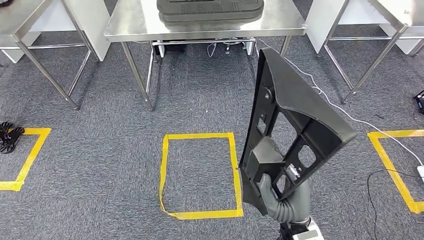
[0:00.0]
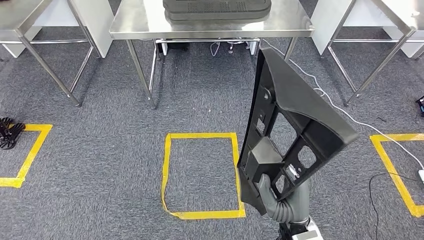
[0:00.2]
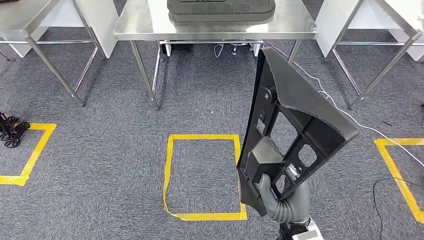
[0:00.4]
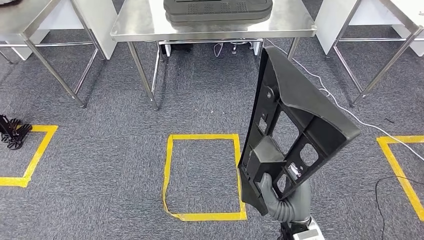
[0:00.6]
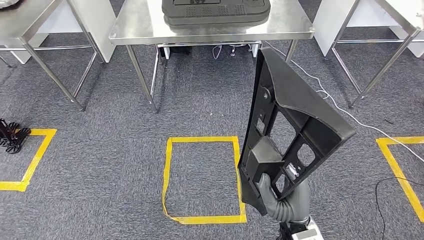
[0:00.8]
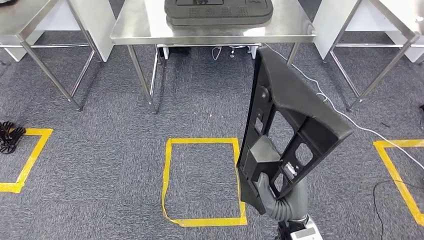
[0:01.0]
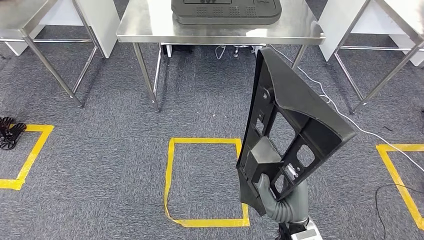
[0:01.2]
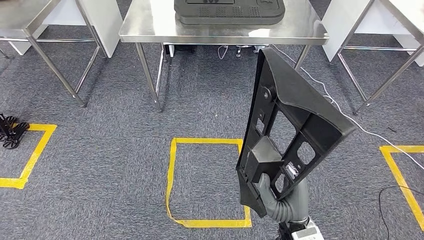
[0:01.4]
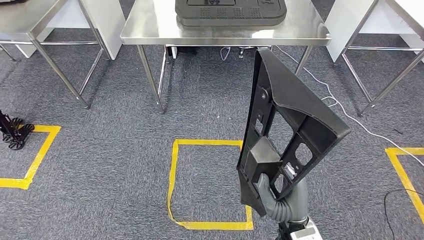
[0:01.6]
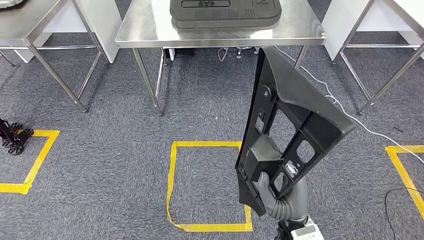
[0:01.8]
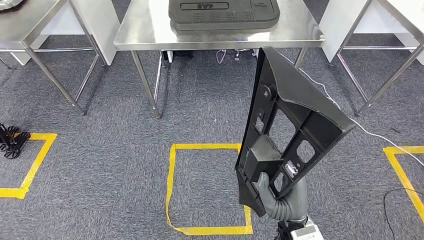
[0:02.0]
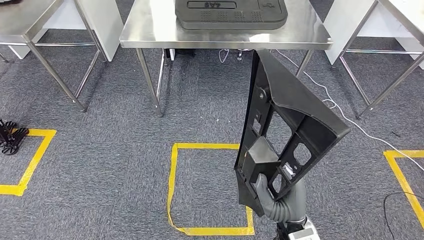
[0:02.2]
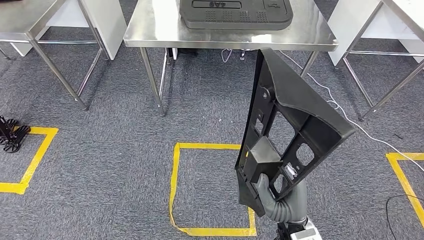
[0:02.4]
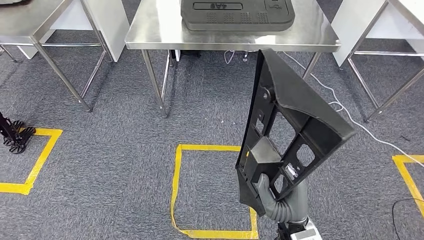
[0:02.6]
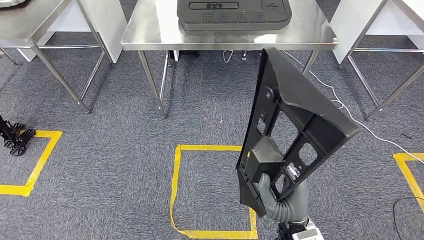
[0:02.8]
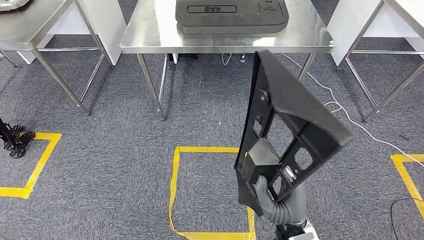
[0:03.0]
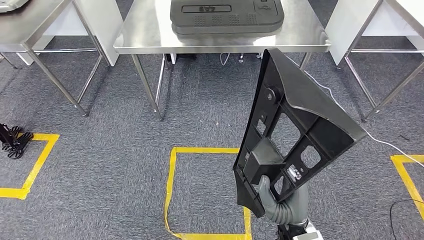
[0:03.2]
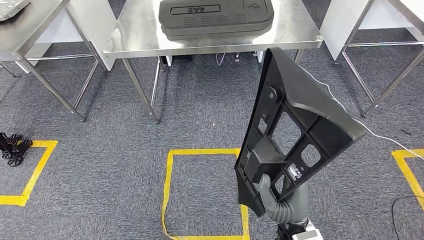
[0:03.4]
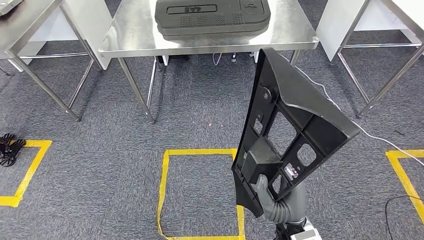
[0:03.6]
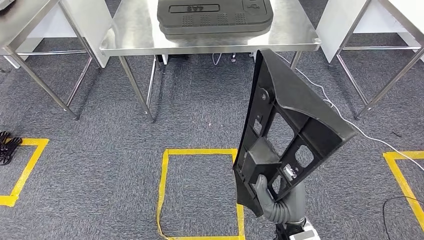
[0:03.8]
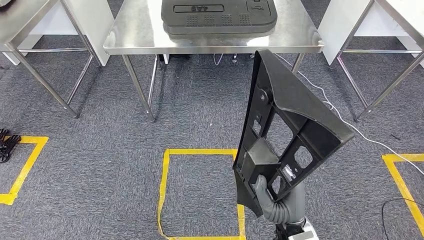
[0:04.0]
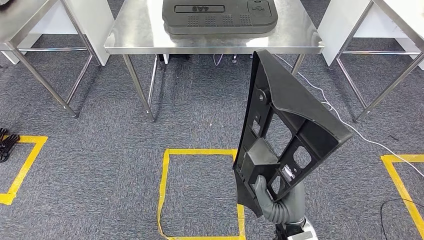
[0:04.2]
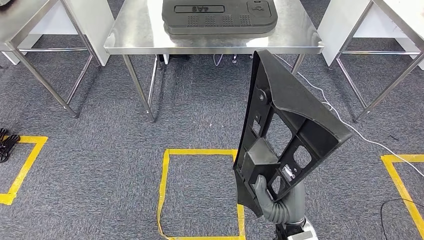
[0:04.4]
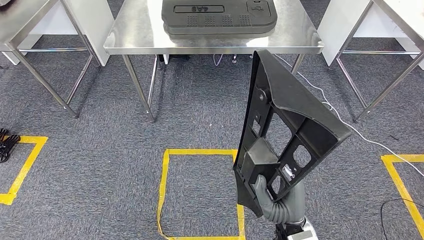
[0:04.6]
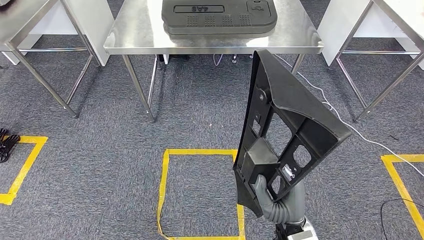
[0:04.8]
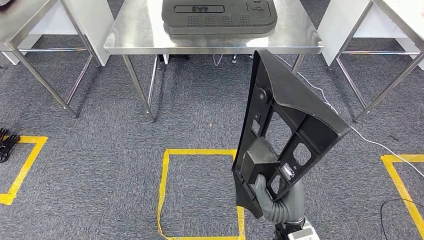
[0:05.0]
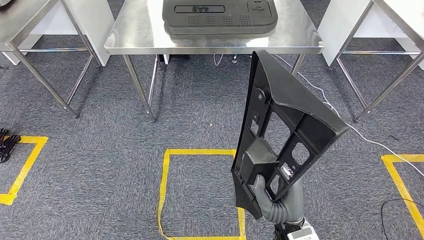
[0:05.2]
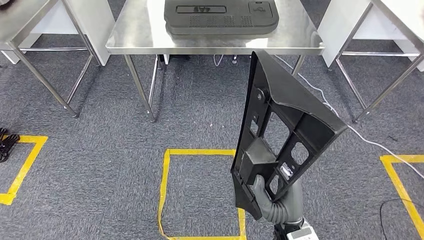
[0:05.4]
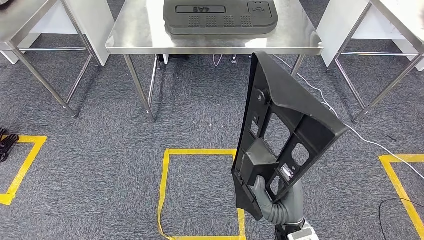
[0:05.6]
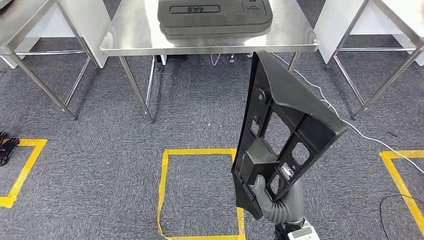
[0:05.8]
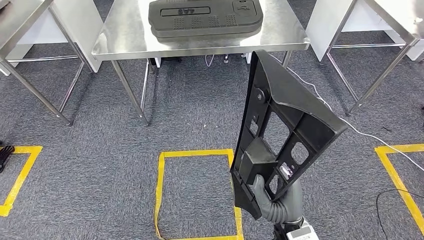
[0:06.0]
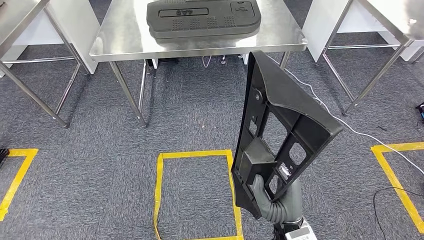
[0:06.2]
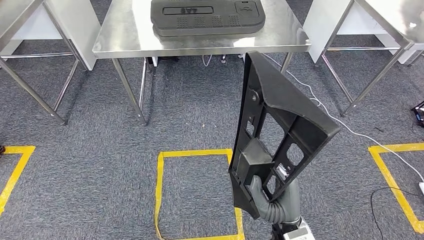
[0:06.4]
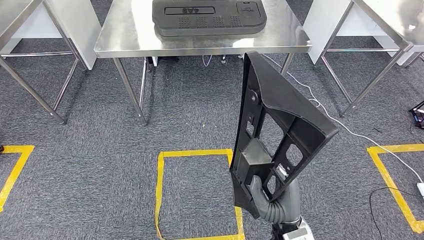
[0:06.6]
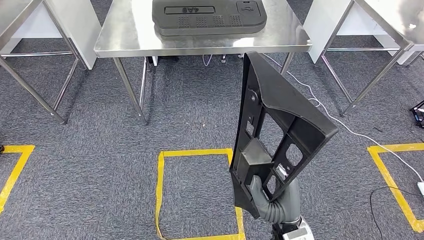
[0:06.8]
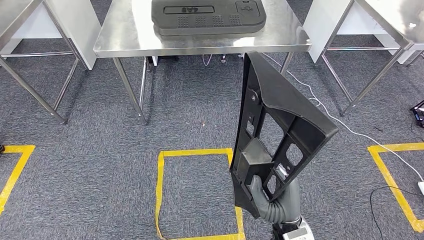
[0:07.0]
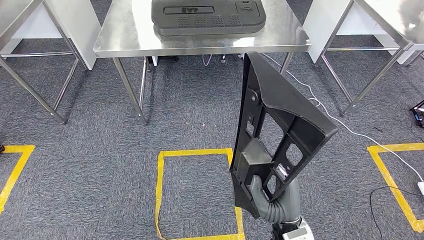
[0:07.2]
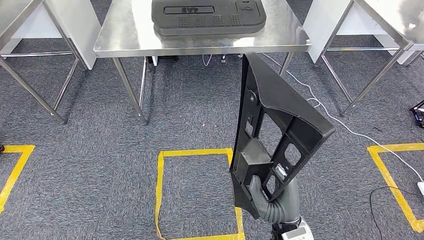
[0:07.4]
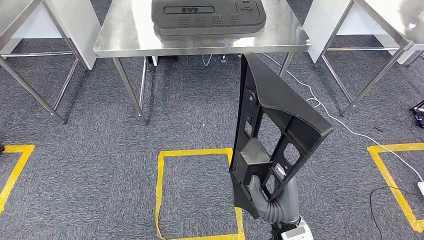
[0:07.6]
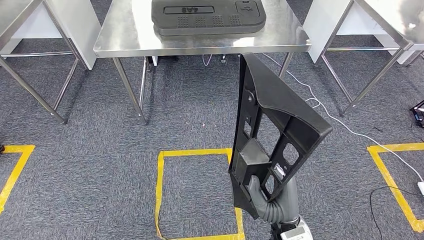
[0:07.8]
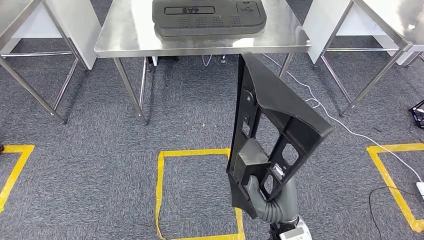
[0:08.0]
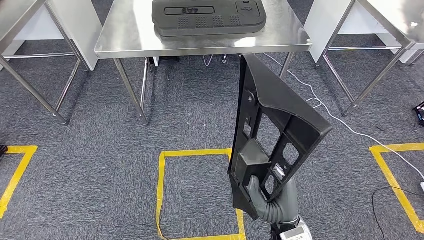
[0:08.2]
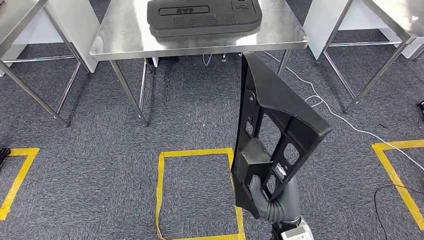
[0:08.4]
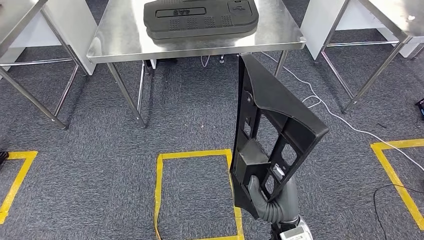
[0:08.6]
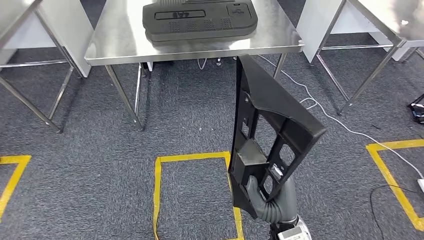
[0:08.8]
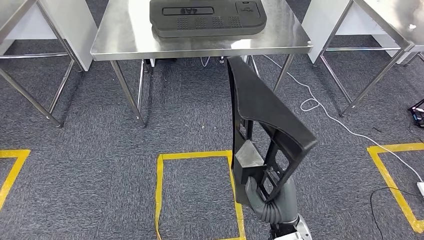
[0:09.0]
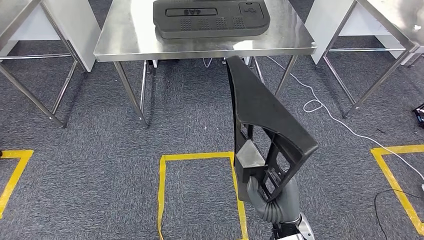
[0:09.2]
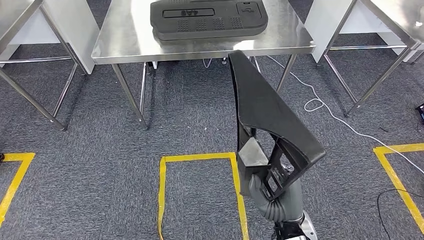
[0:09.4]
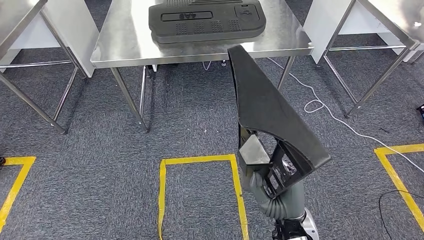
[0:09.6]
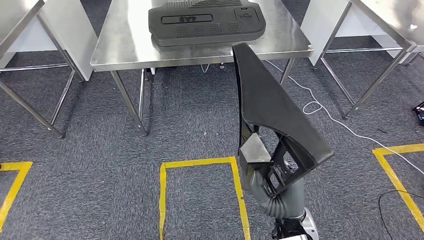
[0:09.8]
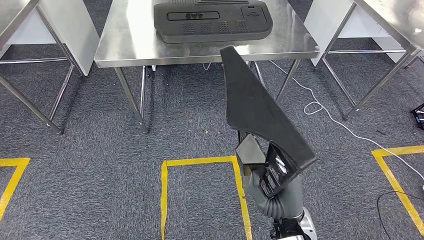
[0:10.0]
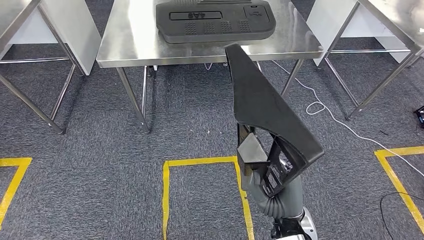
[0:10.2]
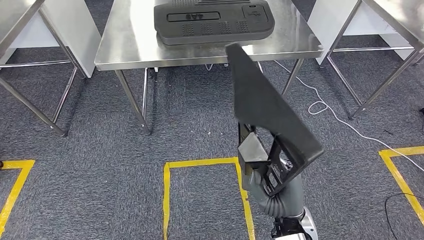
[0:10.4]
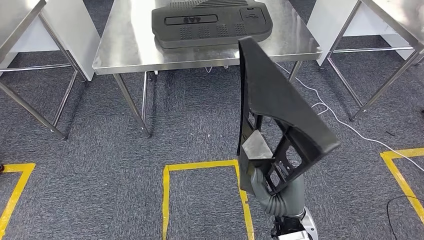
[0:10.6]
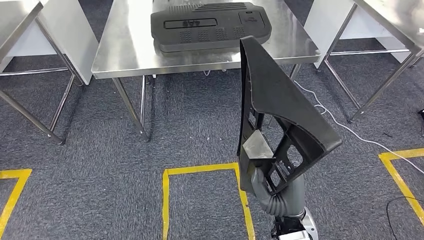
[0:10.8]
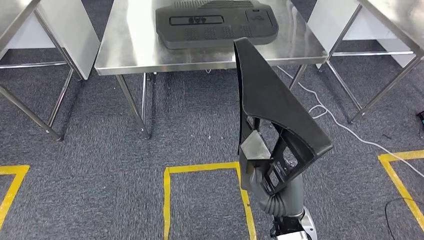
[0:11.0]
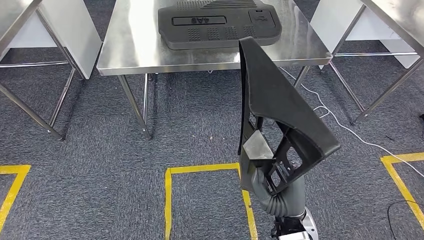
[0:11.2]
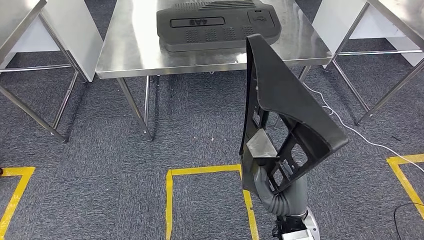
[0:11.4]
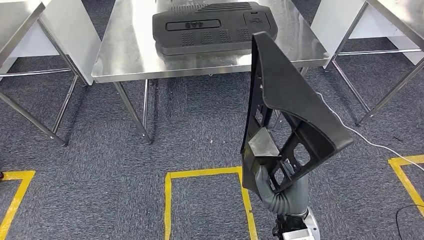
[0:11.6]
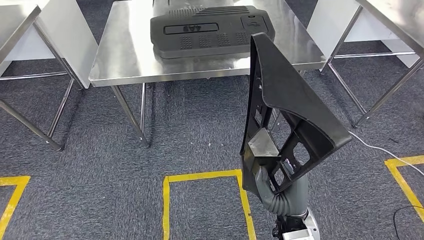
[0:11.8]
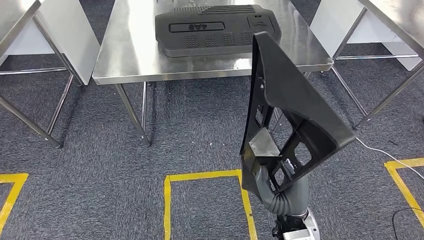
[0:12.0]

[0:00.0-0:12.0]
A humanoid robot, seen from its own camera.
Step, 0:00.0 to 0:10.0: Move the large material to the workbench.

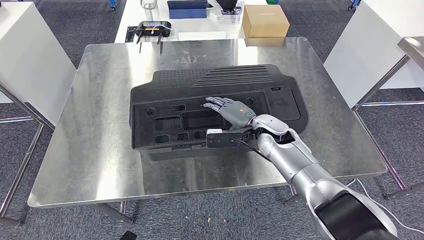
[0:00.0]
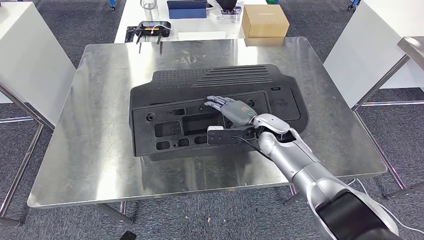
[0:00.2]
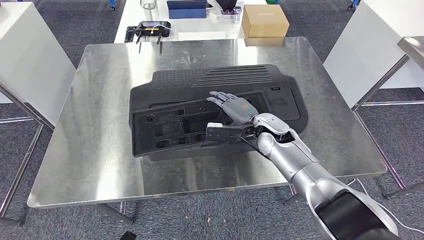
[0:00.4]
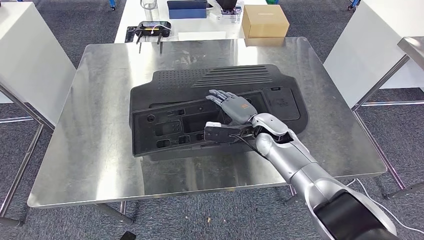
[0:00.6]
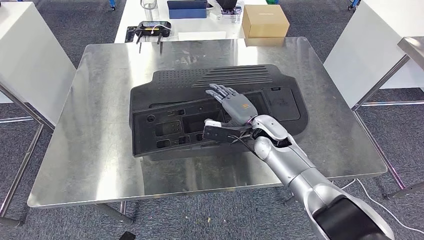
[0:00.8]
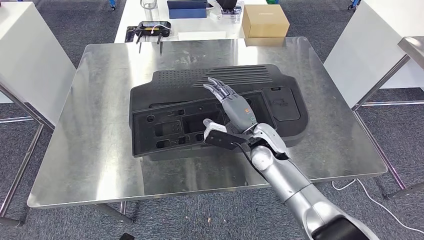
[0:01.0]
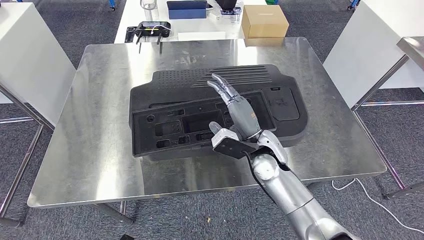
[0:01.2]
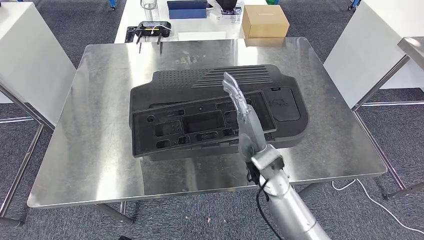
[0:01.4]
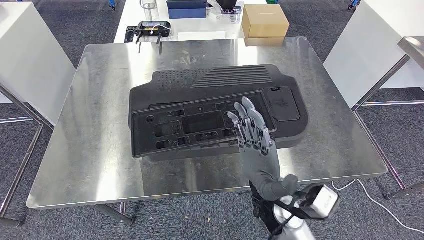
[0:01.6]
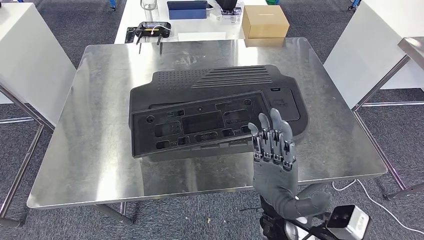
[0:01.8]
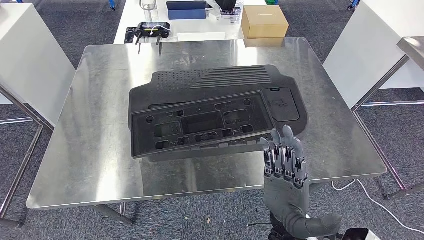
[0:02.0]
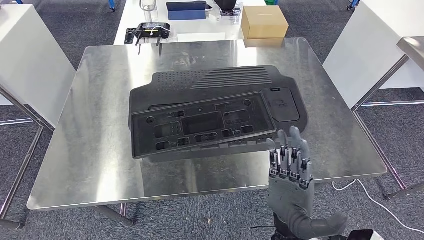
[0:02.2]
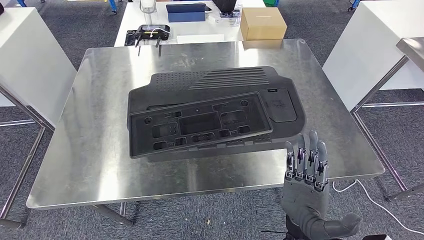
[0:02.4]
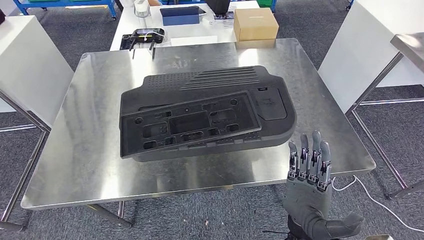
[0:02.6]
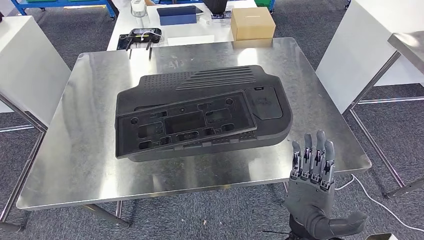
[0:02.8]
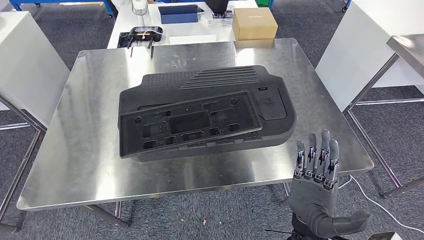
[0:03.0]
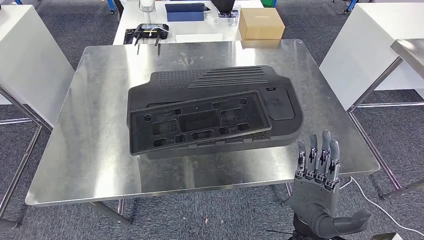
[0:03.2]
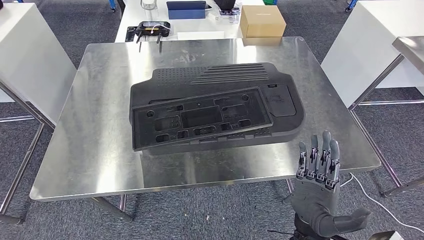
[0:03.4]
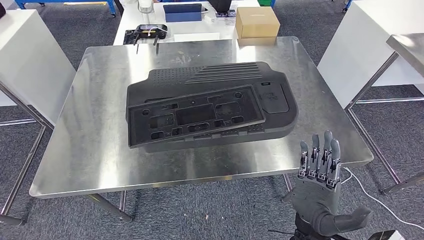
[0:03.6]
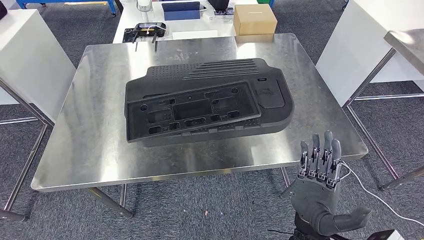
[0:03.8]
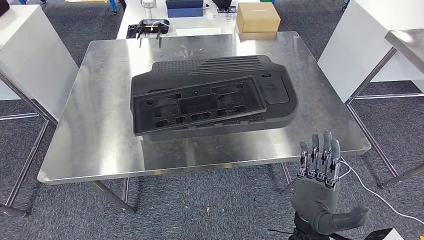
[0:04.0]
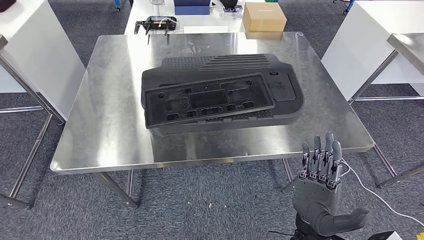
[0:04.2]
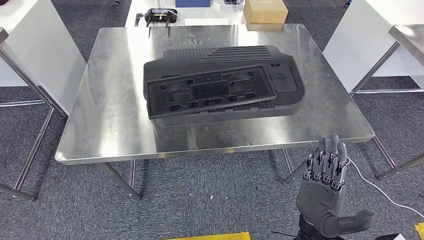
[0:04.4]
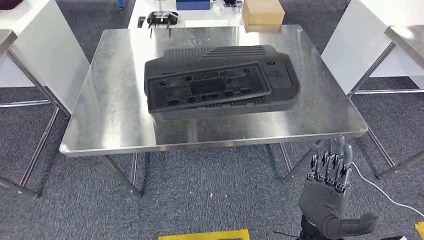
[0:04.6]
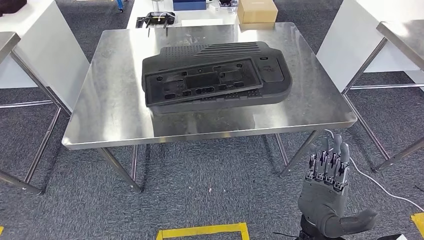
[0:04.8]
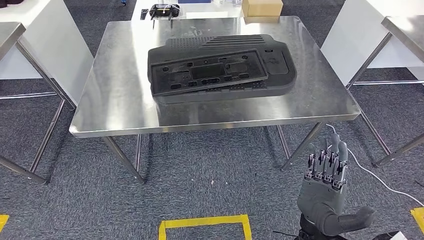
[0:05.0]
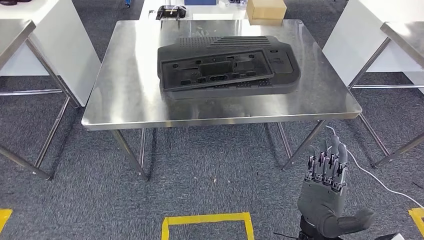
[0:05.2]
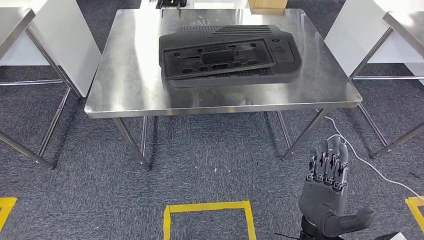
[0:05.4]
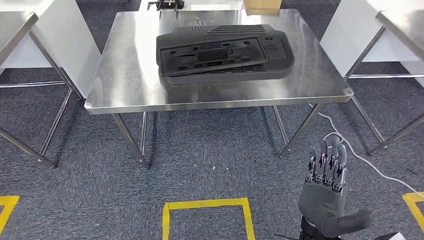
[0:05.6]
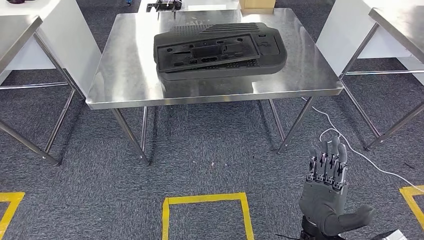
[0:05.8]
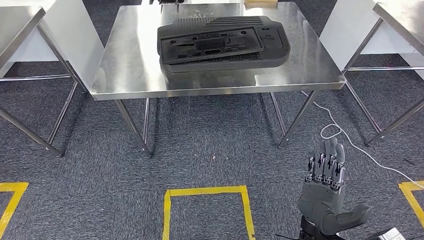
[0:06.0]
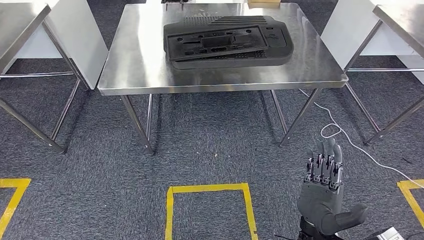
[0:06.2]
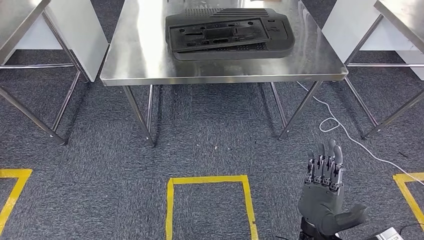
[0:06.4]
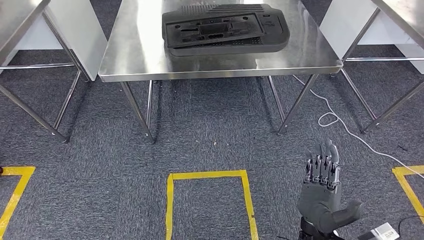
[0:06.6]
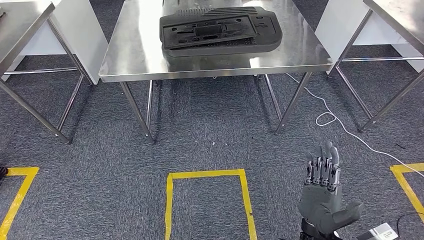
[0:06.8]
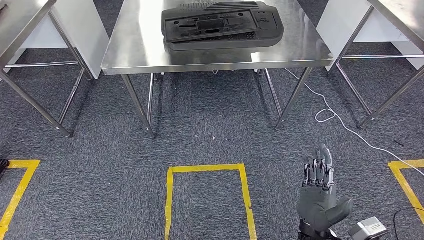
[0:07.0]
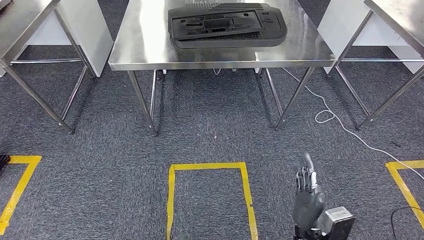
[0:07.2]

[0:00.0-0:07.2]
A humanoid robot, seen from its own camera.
0:00.0 to 0:01.4: The right hand is displaced backward by roughly 10 cm.
